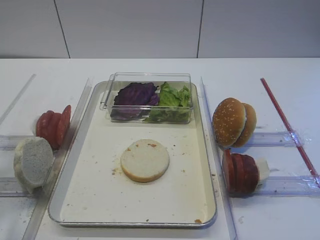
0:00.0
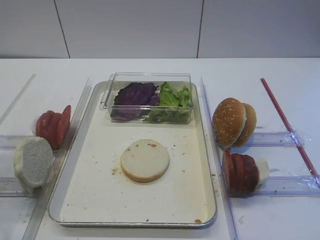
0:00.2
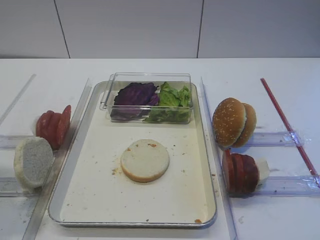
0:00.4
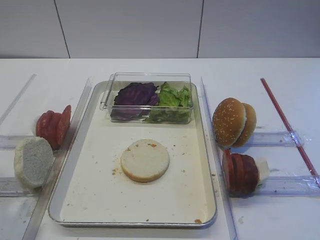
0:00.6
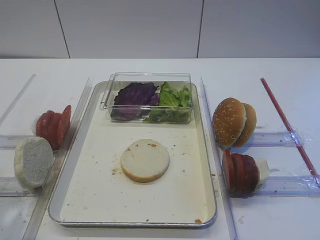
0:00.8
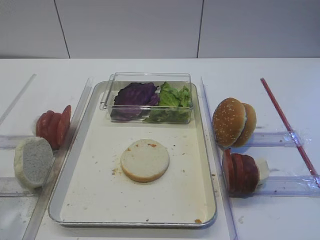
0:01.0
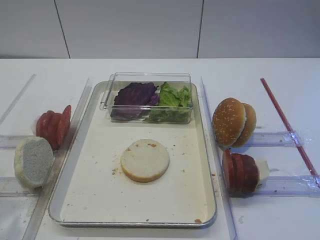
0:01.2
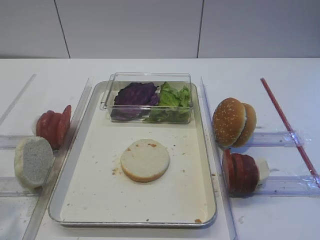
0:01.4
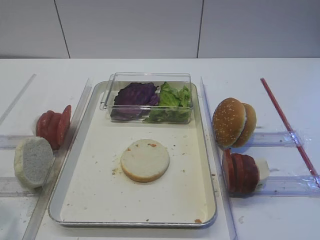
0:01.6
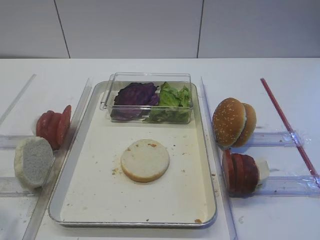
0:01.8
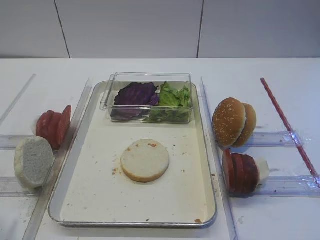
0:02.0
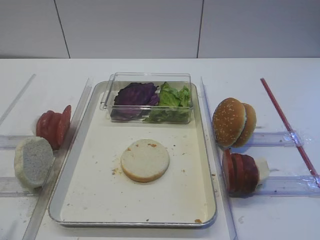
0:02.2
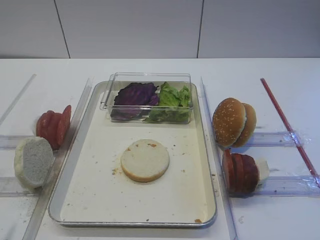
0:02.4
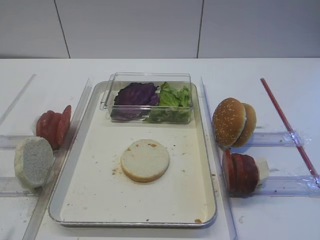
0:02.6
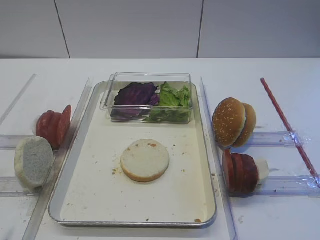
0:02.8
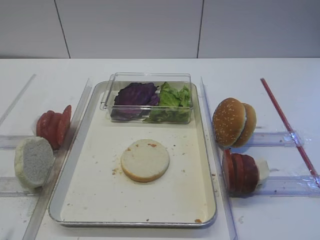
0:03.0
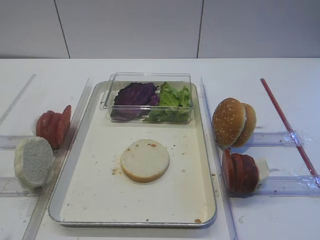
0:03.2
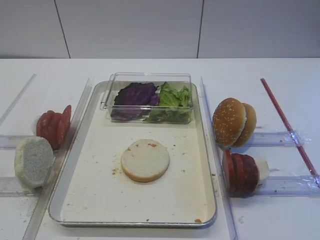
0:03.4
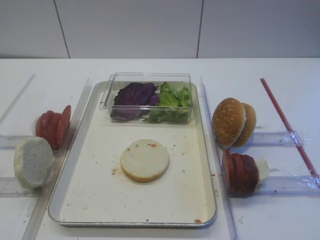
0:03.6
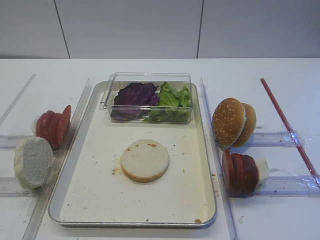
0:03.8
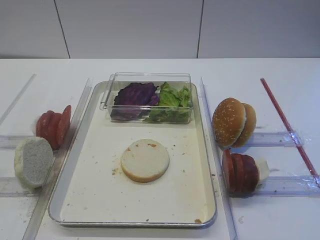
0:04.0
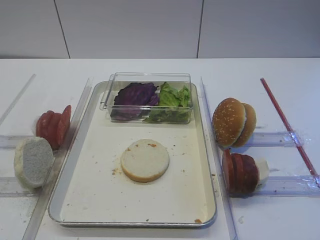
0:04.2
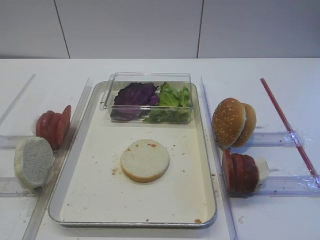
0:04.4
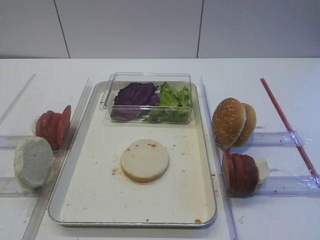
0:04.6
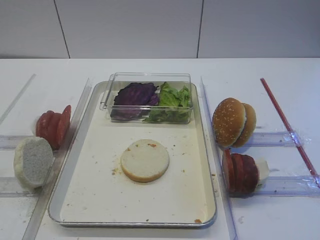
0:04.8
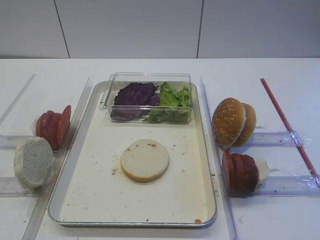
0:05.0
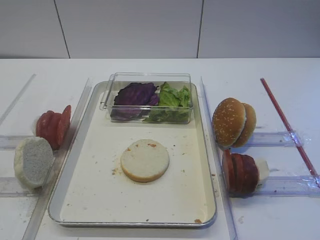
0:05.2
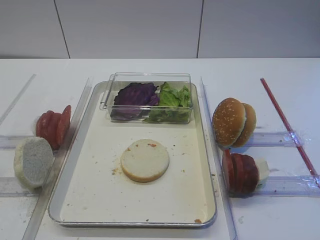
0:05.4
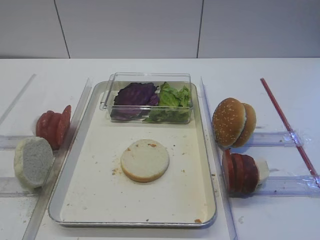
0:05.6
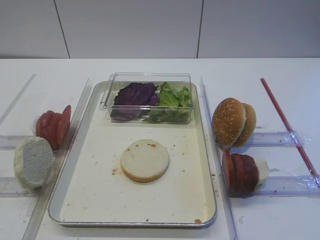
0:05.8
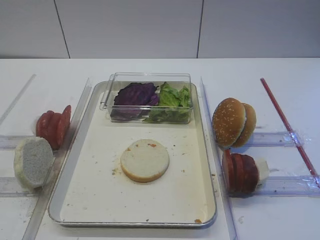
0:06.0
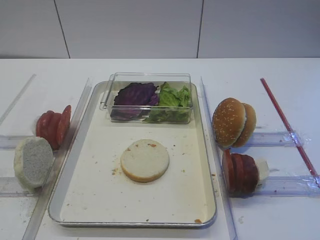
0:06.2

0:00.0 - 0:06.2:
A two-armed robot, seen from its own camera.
0:00.0 - 0:01.6: The left gripper heads backward and downward, covering about 10 cm.
0:04.6 - 0:06.2: Both grippers stay about where they are.

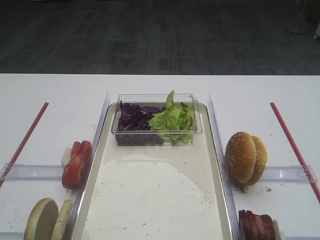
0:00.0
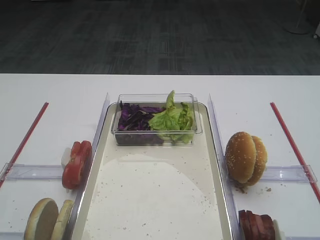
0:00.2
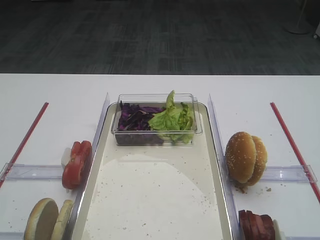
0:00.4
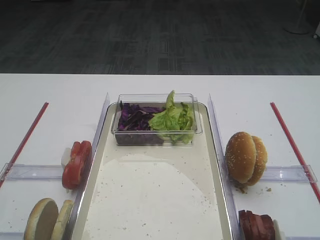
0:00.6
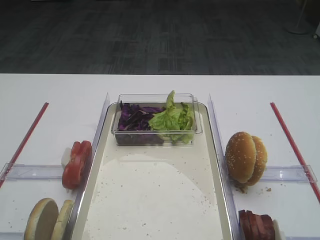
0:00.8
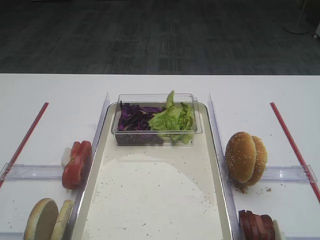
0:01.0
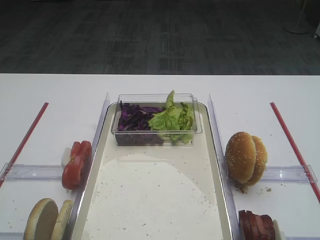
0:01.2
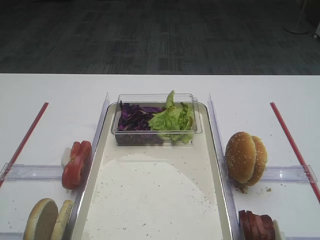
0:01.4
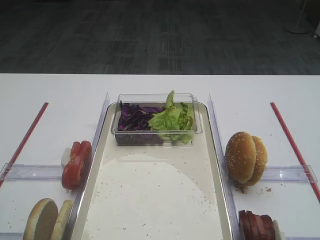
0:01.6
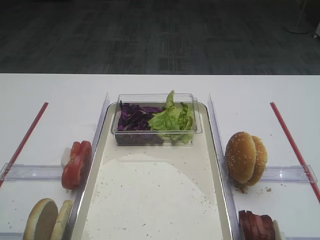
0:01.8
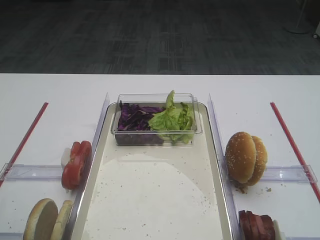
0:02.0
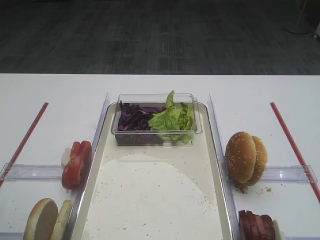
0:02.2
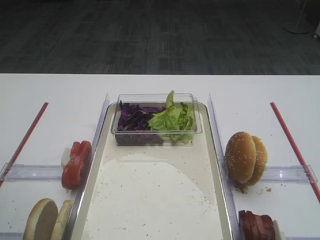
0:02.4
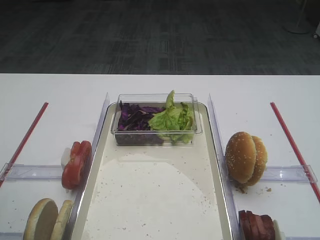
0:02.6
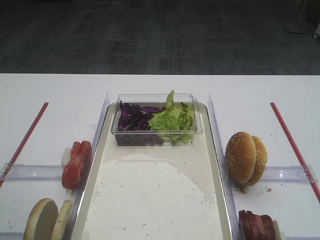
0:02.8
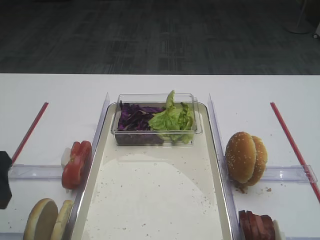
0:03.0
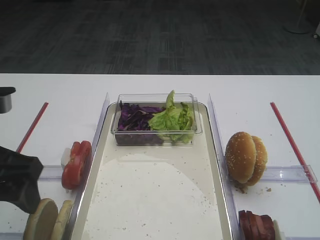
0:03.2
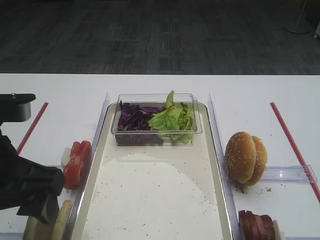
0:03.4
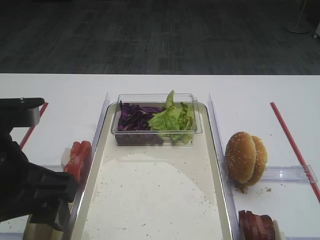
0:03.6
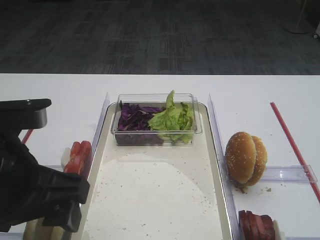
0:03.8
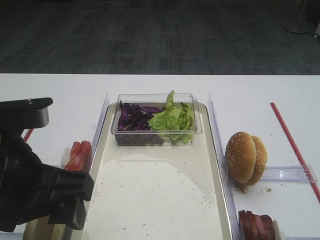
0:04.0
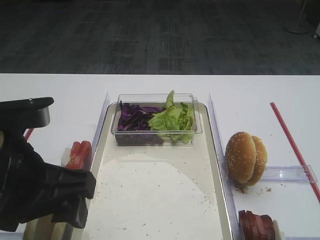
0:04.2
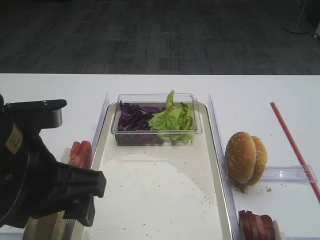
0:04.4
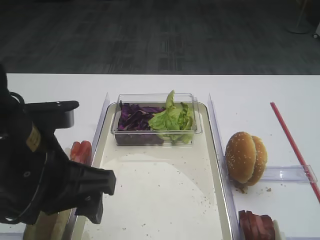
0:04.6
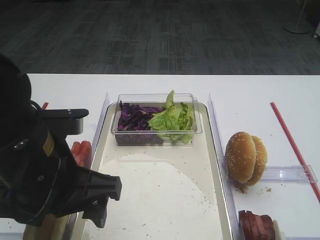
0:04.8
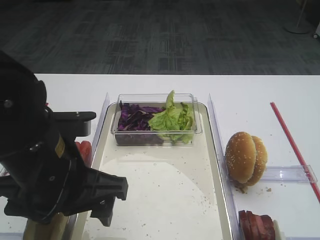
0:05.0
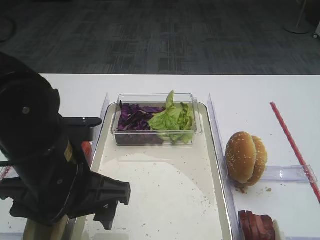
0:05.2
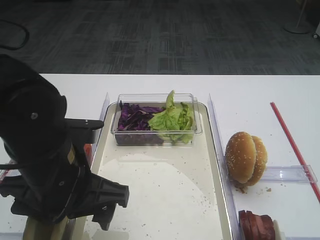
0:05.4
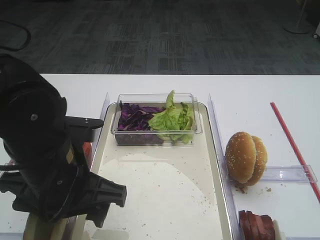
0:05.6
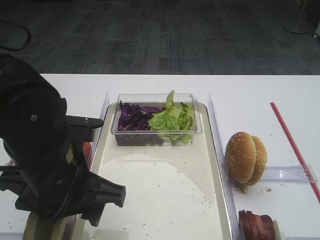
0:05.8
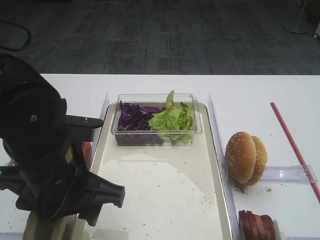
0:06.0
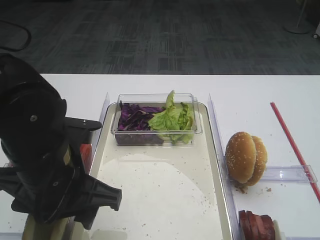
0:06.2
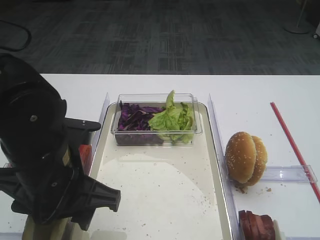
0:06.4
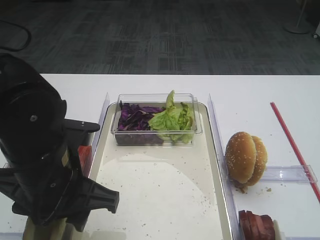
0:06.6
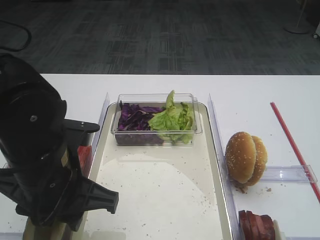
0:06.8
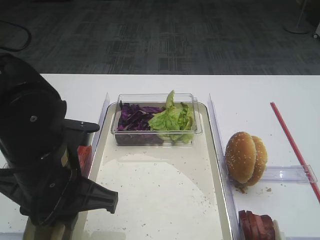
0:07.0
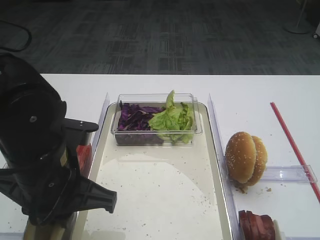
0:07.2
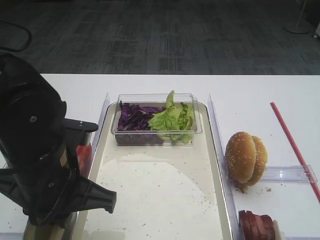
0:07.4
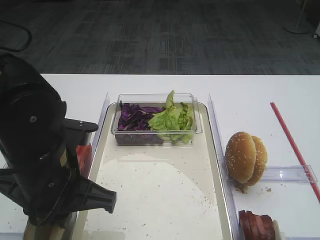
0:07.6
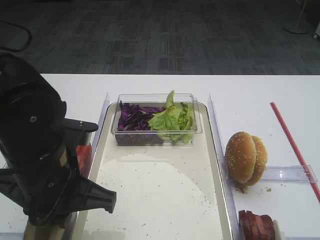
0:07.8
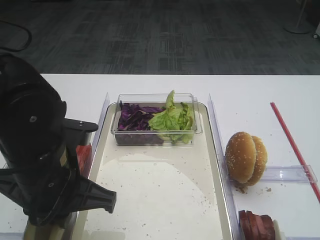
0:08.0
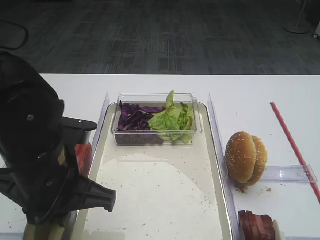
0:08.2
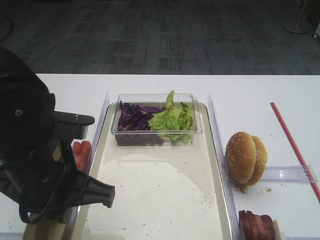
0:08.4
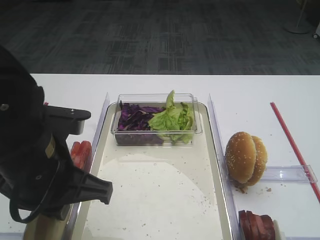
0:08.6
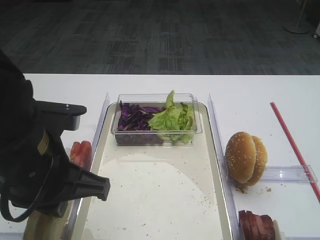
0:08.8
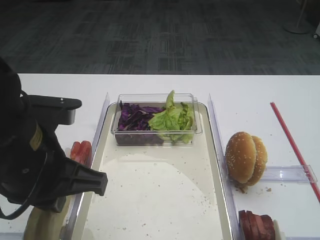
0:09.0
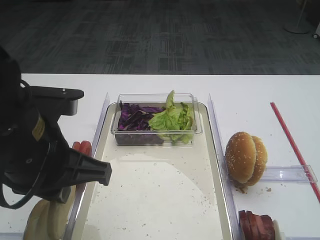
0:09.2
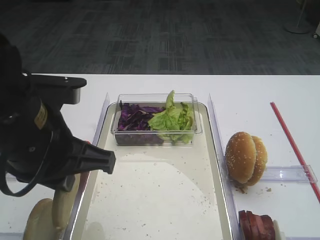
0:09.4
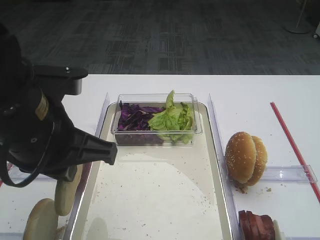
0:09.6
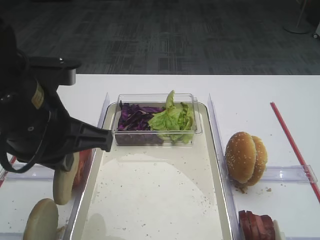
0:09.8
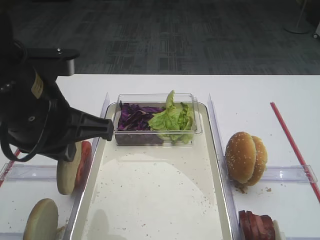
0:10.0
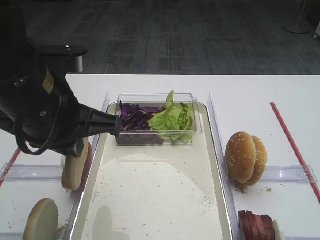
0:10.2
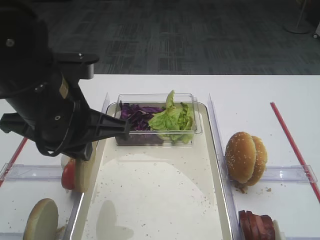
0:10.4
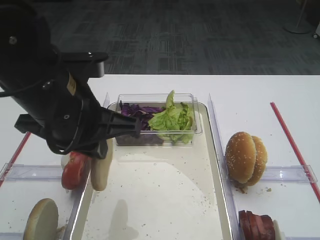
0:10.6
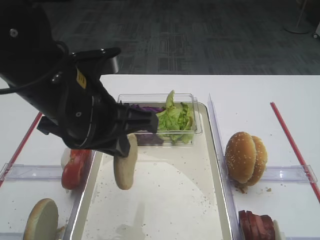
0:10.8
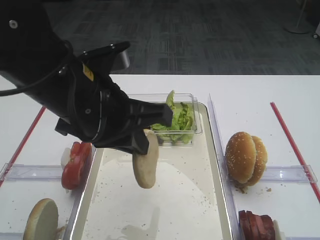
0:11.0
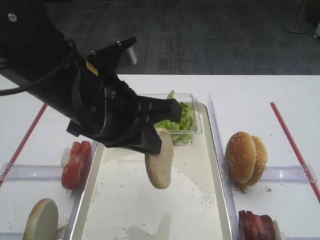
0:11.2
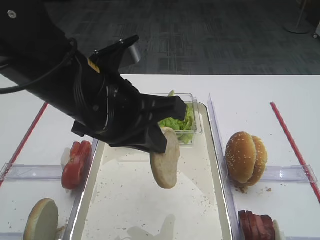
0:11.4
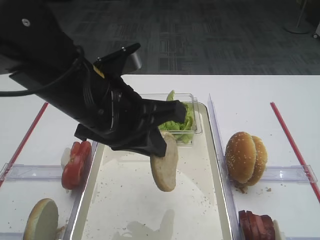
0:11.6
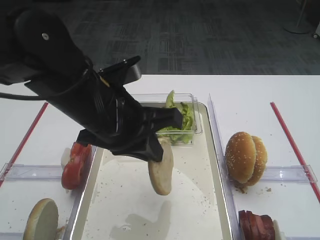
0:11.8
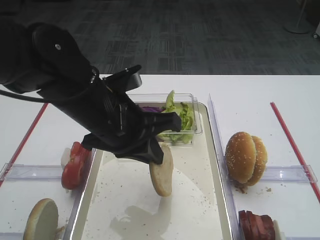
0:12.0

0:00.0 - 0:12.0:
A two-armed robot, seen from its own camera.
Step, 0:00.0 - 0:09.4: Pick up the bread slice with the left gripper.
0:01.6 - 0:03.0: The left gripper goes roughly 5 cm forward.
0:03.0 - 0:04.4: The left gripper goes some 10 cm to the right.
0:04.4 - 0:06.0: The left gripper moves about 5 cm.
0:06.0 - 0:07.6: The left gripper closes up.
0:07.6 - 0:09.0: There are only small adjustments of the grippers.
0:09.0 - 0:10.4: The left gripper ends up roughly 5 cm from where it was.
0:10.4 - 0:12.0: The left gripper goes about 5 cm to the right.

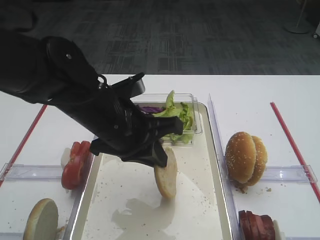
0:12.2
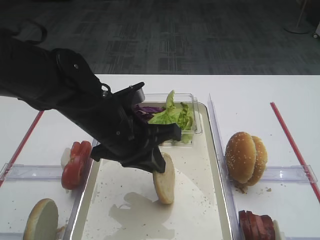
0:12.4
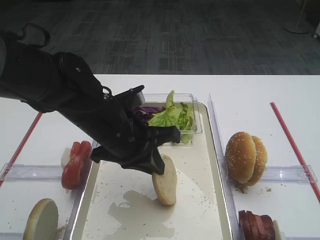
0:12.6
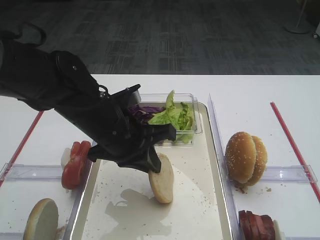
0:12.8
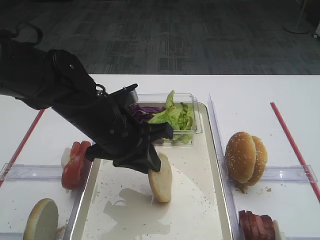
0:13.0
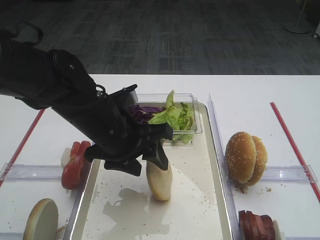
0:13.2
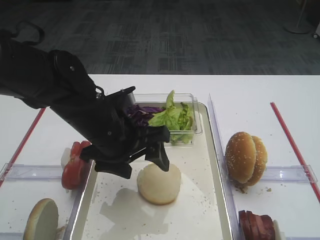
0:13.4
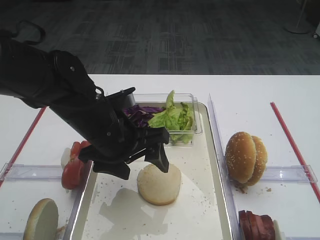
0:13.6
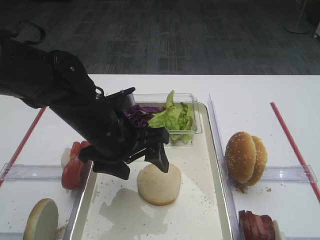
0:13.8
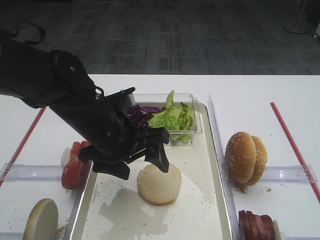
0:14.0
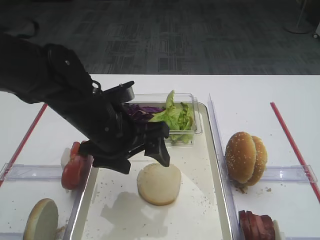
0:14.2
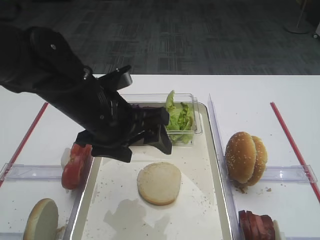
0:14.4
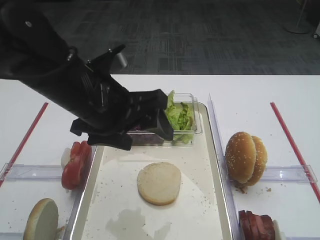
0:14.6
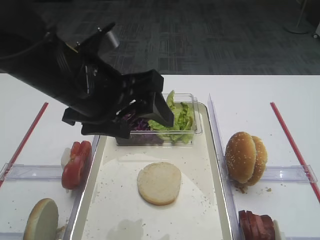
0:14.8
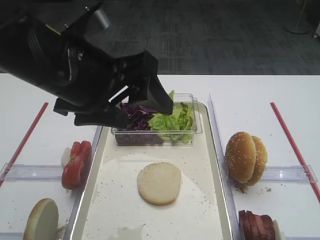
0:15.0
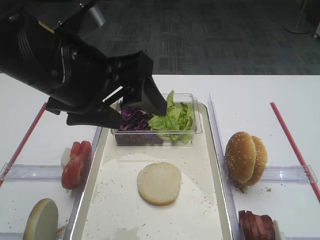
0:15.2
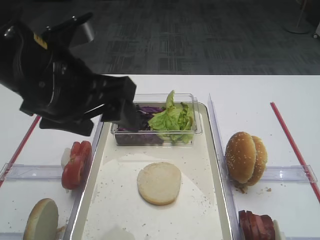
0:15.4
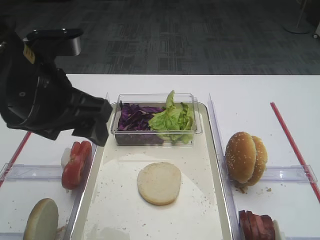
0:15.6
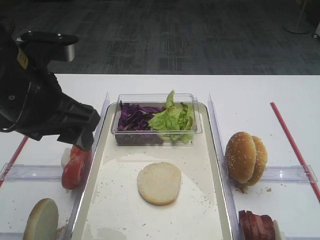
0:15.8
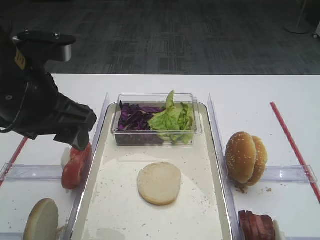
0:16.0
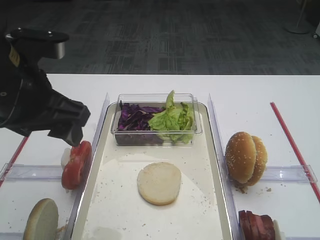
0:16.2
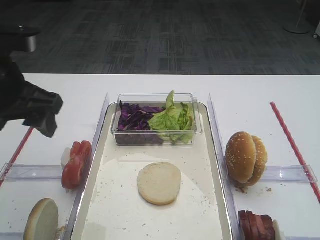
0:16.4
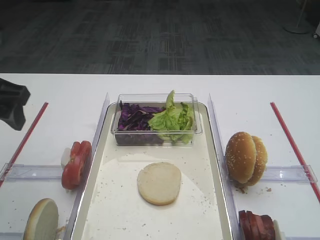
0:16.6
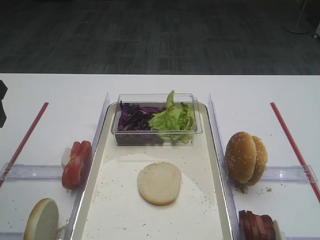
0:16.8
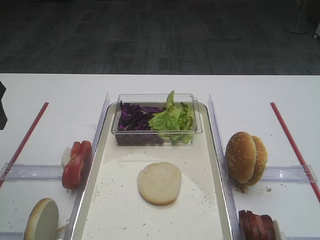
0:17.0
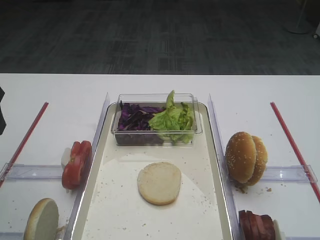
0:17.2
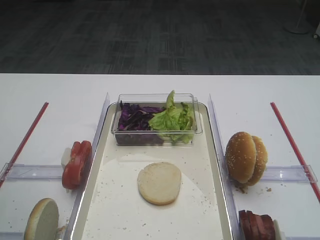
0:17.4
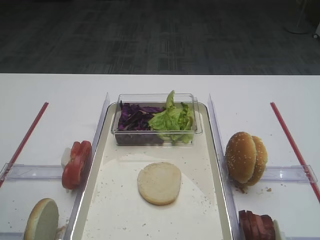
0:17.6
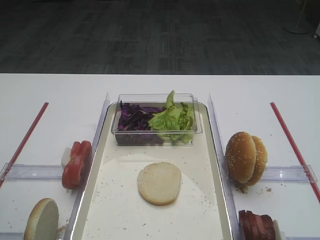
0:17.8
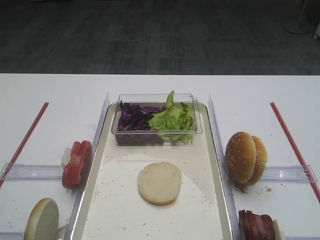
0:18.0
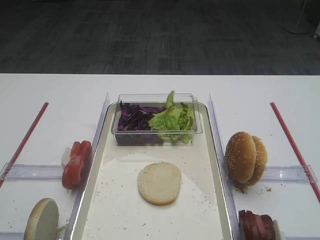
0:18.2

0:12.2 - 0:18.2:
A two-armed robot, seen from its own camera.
Step, 0:12.2 - 0:14.4: Place the bread slice on the tray with the left gripper.
0:12.2 - 0:13.8: The left gripper opens.
0:13.8 - 0:15.2: The left gripper heads upward and backward, covering approximately 15 cm.
0:15.2 - 0:16.6: The left gripper heads to the left, covering some 15 cm.
0:16.6 - 0:18.2: The left gripper heads backward, covering roughly 20 cm.
